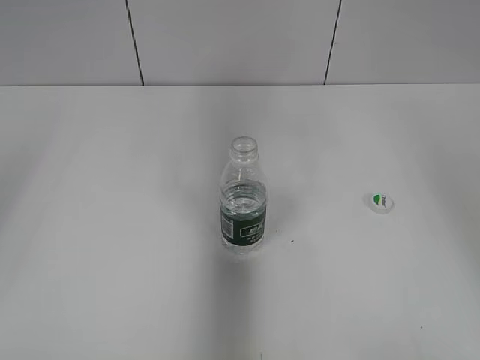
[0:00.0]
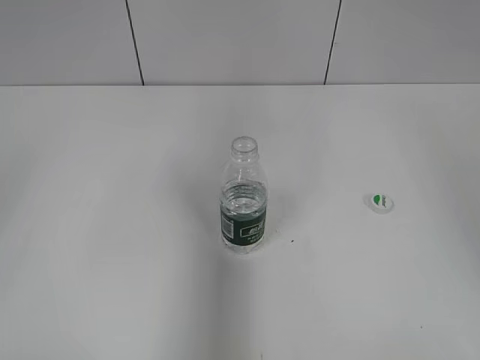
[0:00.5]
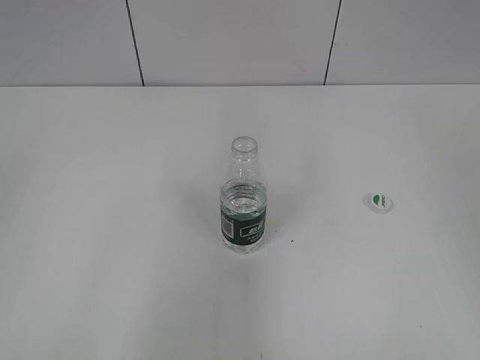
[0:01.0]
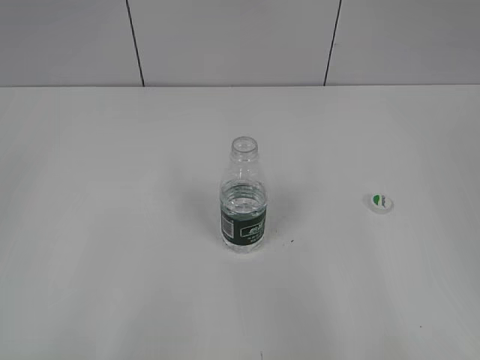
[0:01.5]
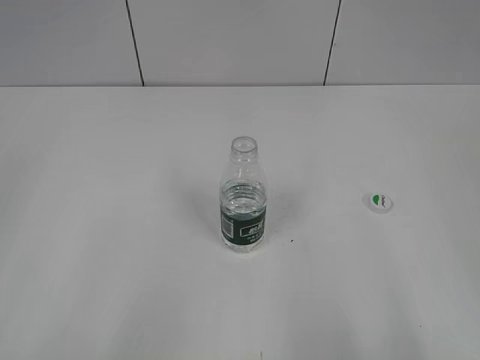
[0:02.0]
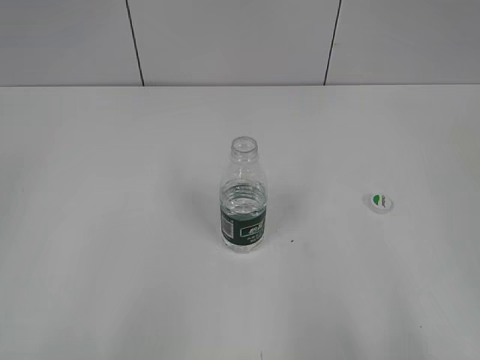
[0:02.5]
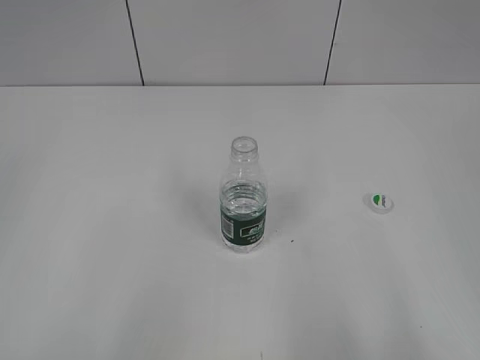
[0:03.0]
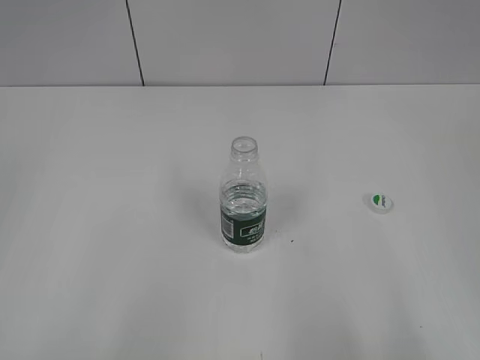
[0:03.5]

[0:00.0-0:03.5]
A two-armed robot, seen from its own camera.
0:00.0 to 0:02.0: The left gripper heads backward and downward, covering some 25 cm. Meanwhile the right gripper is displaced backward by roughly 30 cm.

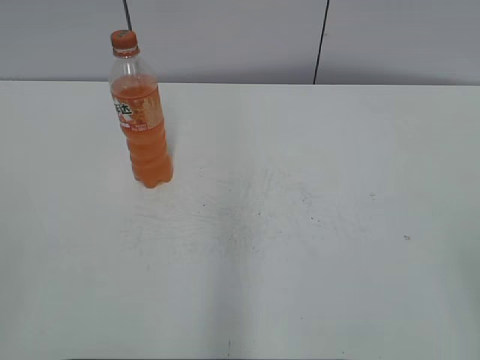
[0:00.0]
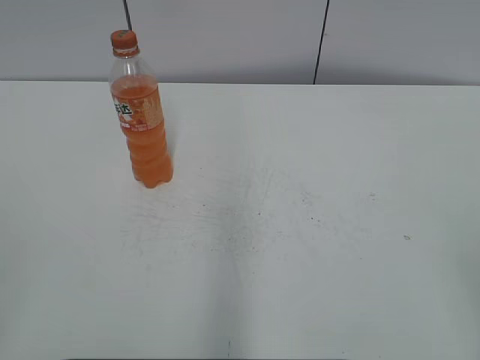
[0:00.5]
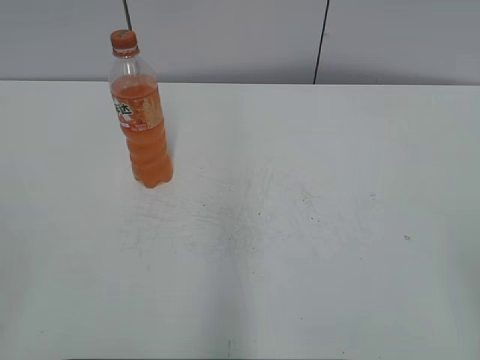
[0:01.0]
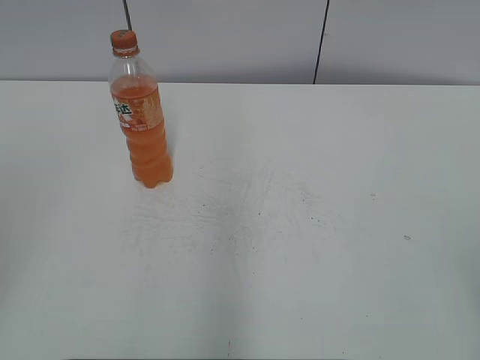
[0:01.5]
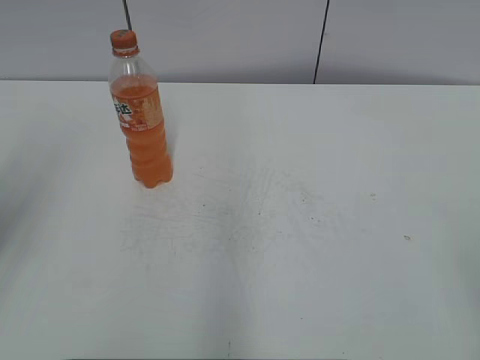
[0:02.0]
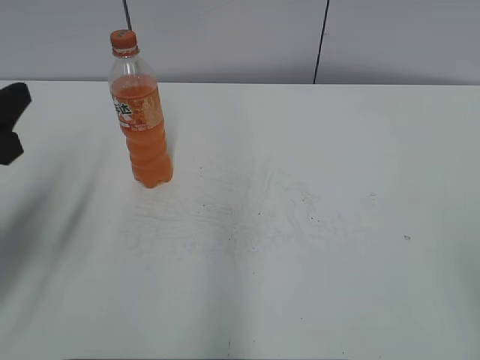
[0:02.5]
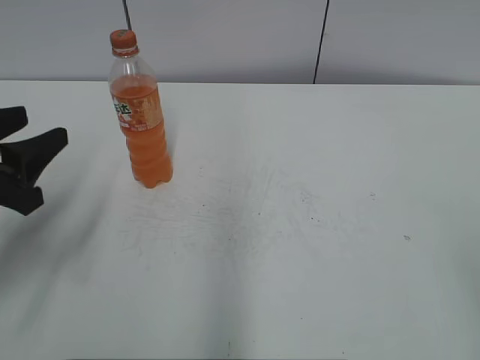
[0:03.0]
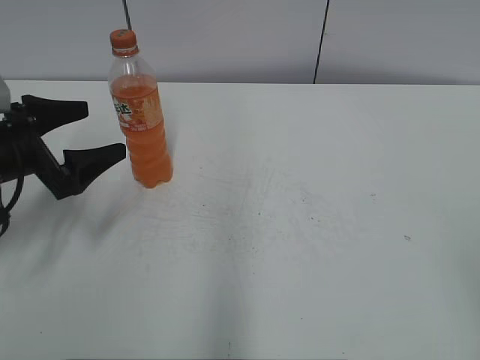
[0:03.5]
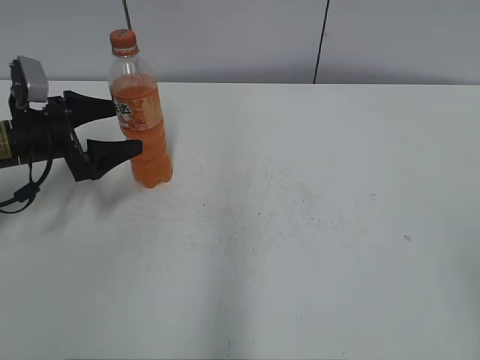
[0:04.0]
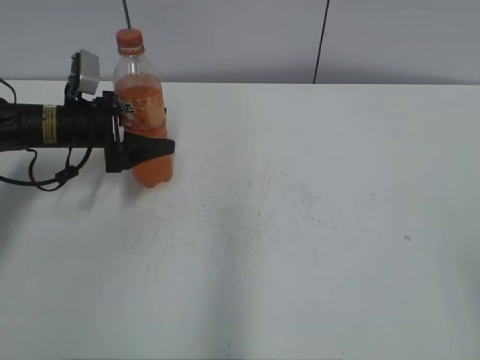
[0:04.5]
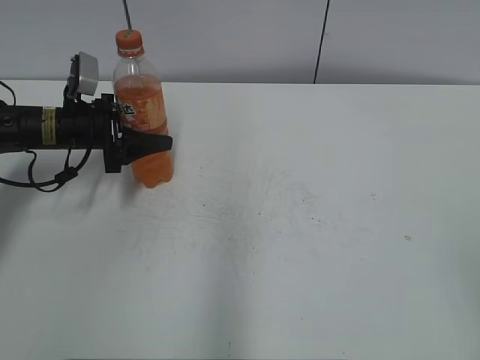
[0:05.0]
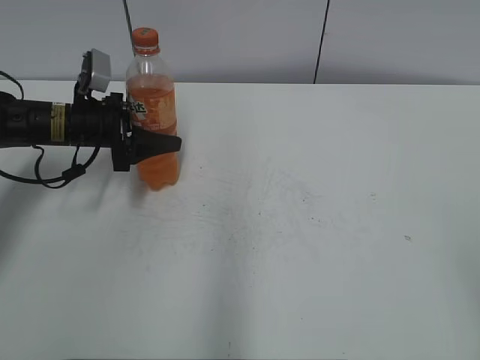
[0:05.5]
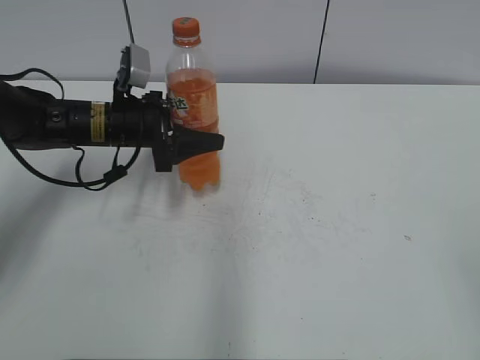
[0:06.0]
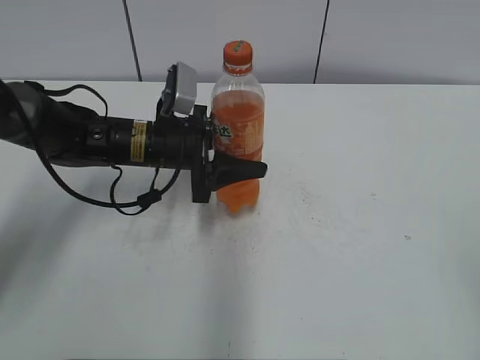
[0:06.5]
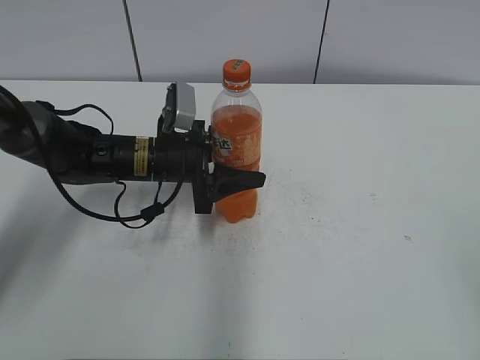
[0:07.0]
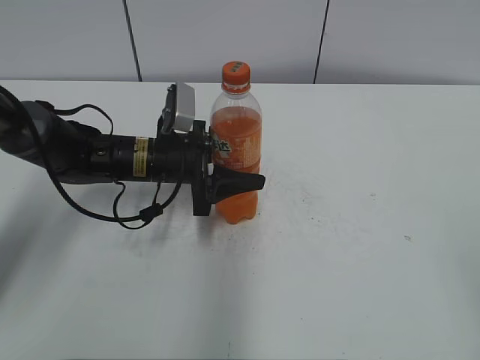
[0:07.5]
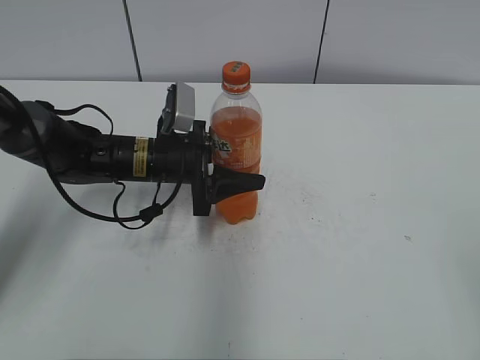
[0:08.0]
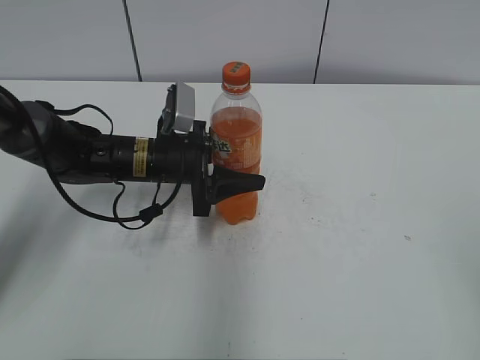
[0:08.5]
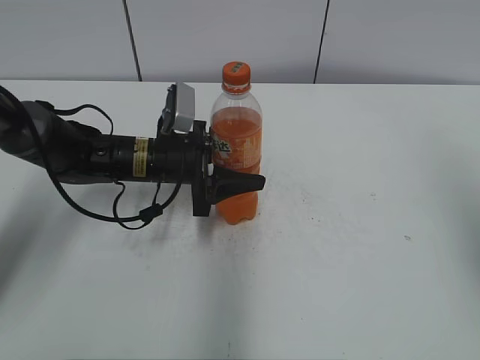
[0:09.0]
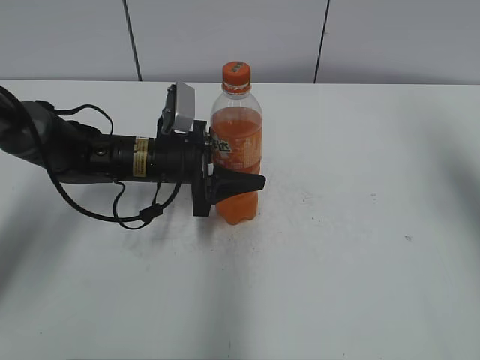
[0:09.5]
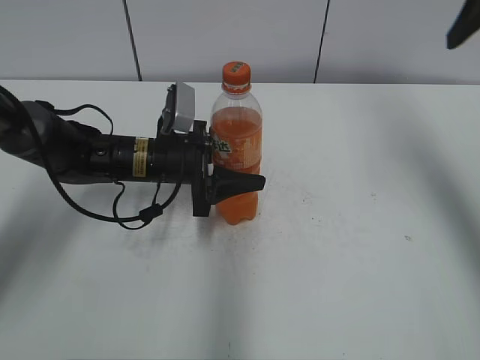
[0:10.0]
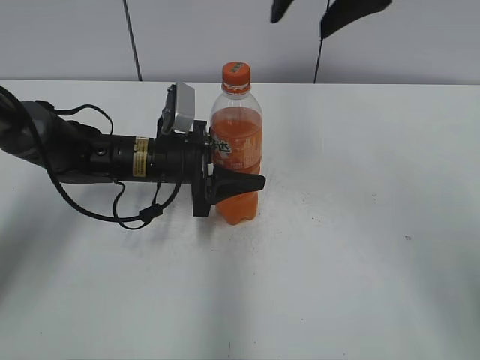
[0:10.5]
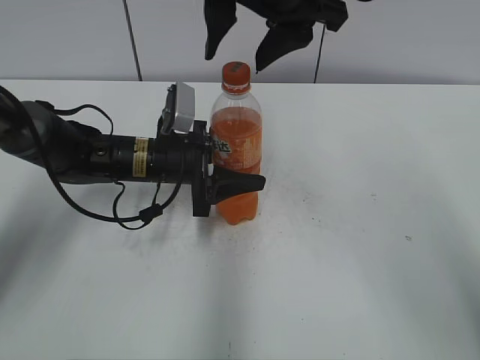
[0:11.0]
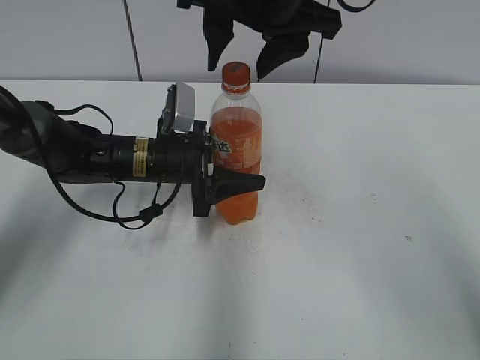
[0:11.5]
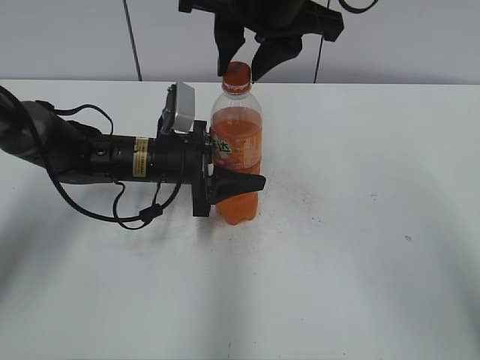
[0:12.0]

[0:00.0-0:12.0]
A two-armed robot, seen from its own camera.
Step, 0:00.0 to 0:04.5: Grab the Mirinda with the left hand.
Step, 0:05.0 to 0:07.0: Move the Mirinda from left to right.
0:02.0 to 0:04.0: The left gripper goes some 30 cm downward and forward, and opens up.
0:04.0 to 0:06.0: The left gripper goes approximately 10 cm to the right, and closes.
0:06.0 to 0:08.0: The left gripper moves to the right, roughly 5 cm.
0:08.0 to 0:10.0: The right gripper travels forward by roughly 30 cm.
0:10.0 to 0:12.0: The right gripper travels to the left by approximately 20 cm, and closes.

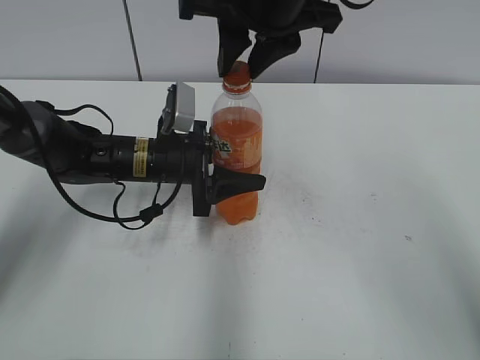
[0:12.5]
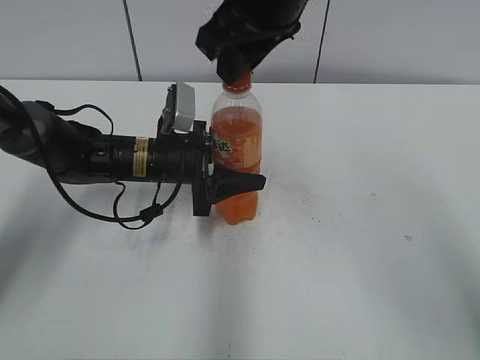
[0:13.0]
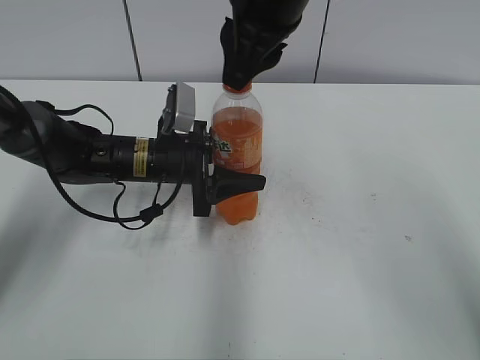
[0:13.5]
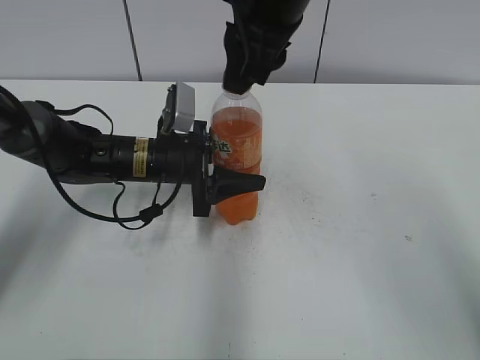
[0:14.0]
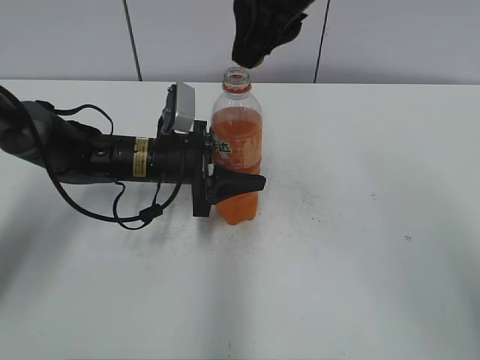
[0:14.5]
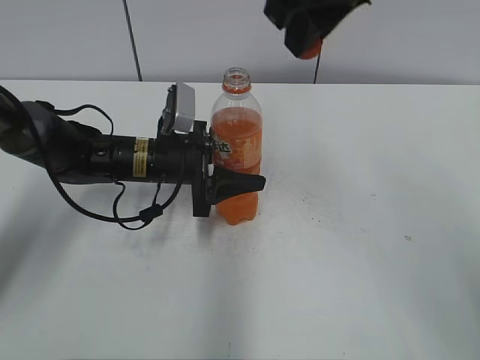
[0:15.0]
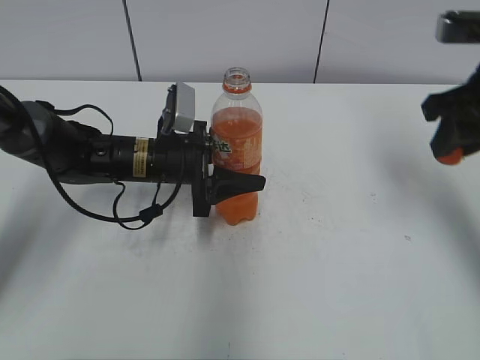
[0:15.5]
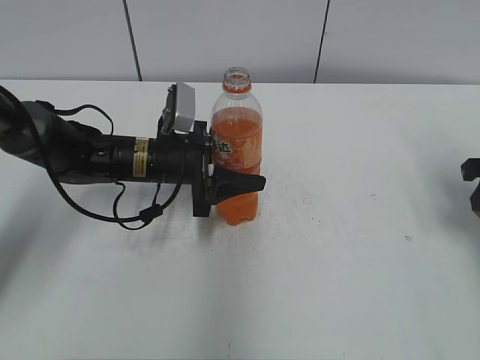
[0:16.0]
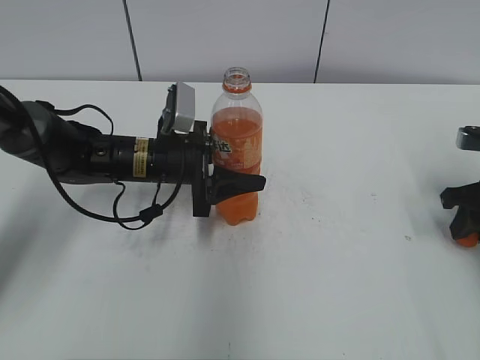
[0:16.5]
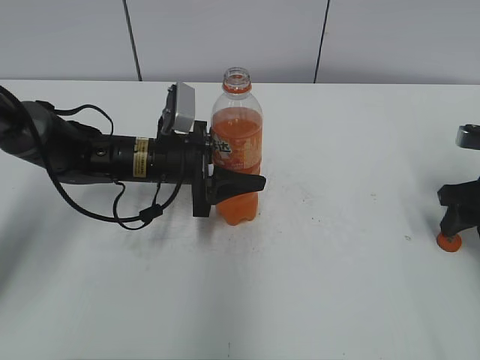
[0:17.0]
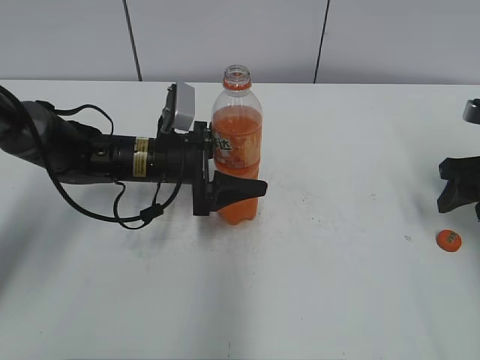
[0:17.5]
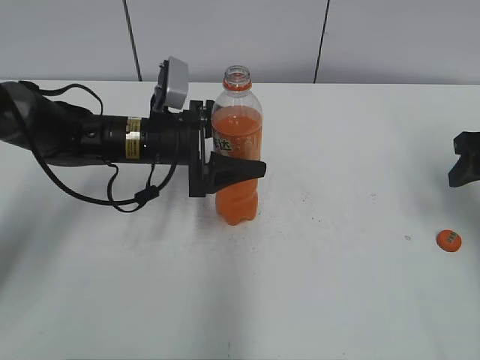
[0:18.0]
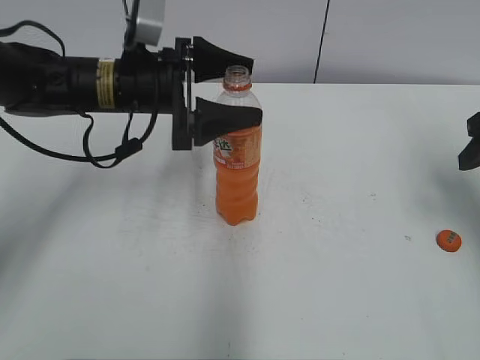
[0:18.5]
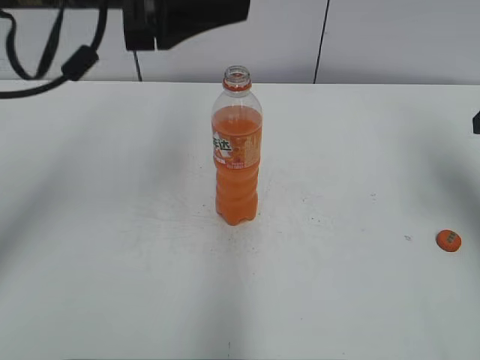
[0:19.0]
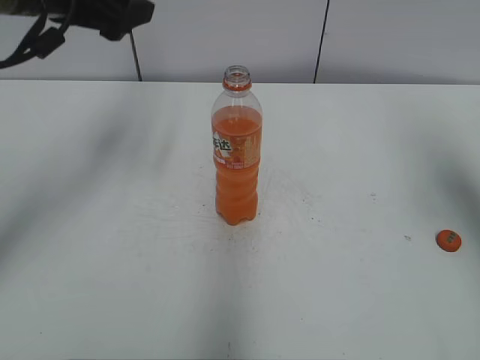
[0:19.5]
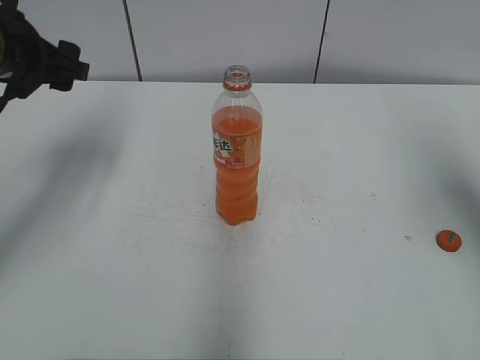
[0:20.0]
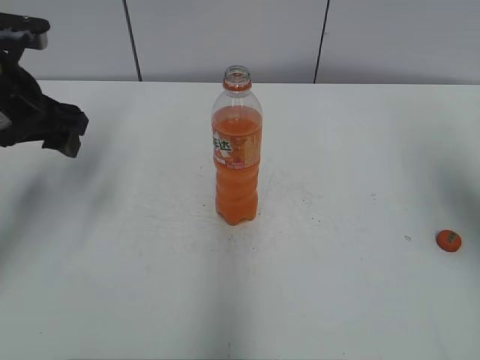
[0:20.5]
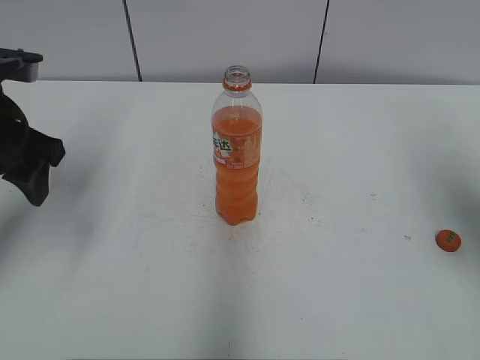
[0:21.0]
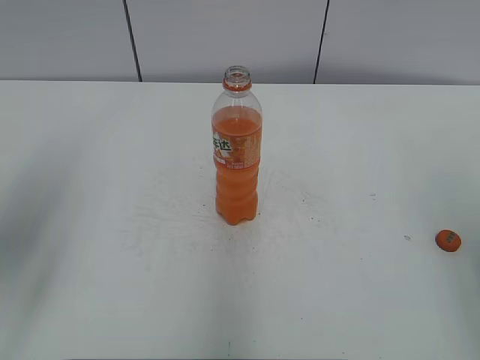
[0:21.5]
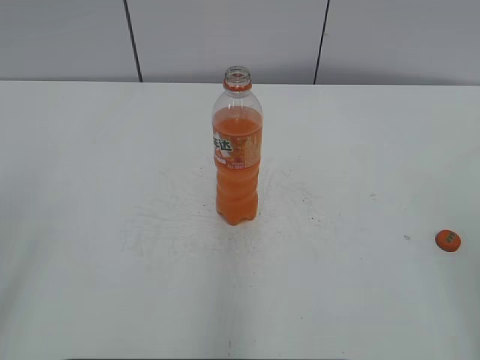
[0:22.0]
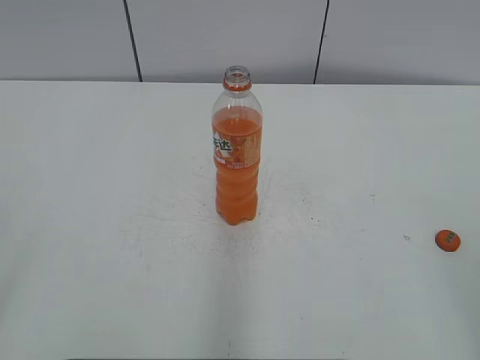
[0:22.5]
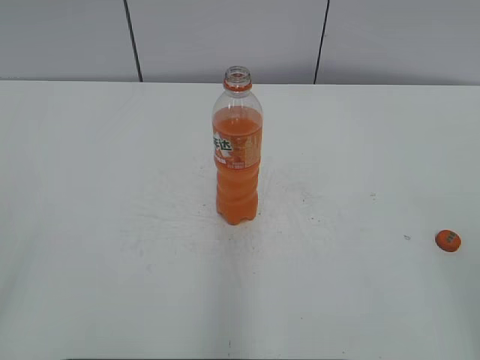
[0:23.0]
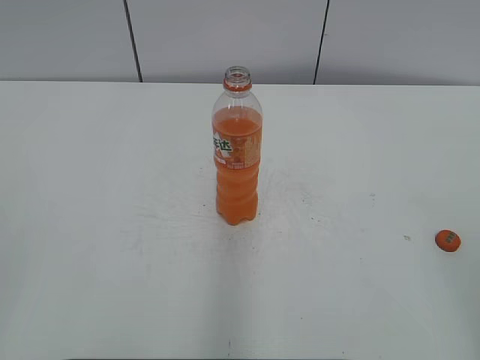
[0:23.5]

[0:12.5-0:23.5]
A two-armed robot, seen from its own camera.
Step, 0:14.5 to 0:16.5: Place the bottle cap on the right.
0:14.5 to 0:16.0: The right gripper heads to the right and downward, covering roughly 35 cm.
0:16.0 to 0:18.0: The left gripper opens its fingers; the right gripper opens up.
0:18.0 to 0:20.0: The left gripper moves upward and to the left, approximately 20 cm. Meanwhile the right gripper is displaced upward by some 10 cm.
0:20.0 to 0:21.5: Both grippers move backward, some 15 cm.
0:21.5 to 0:23.5: The left gripper goes some 20 cm backward.
